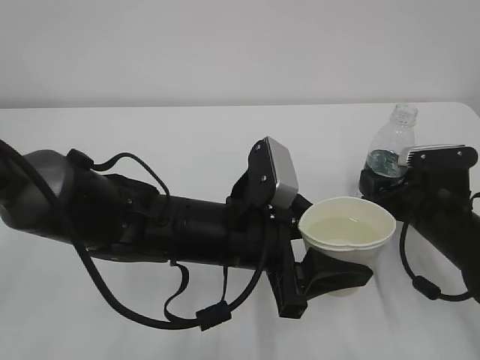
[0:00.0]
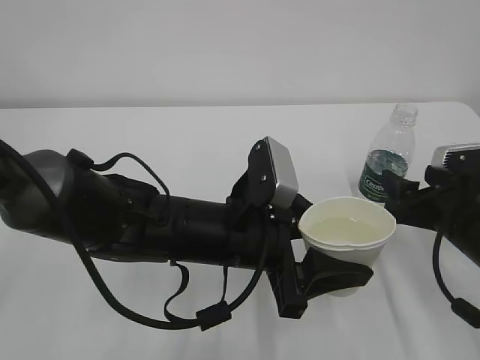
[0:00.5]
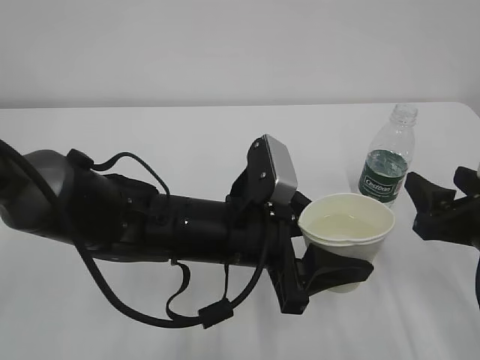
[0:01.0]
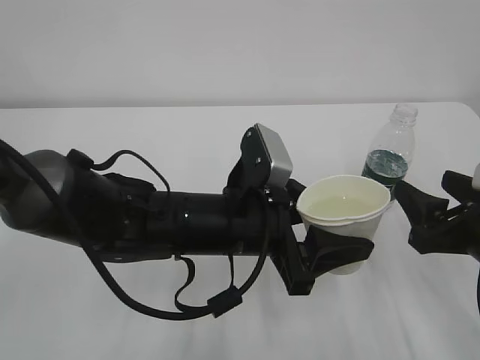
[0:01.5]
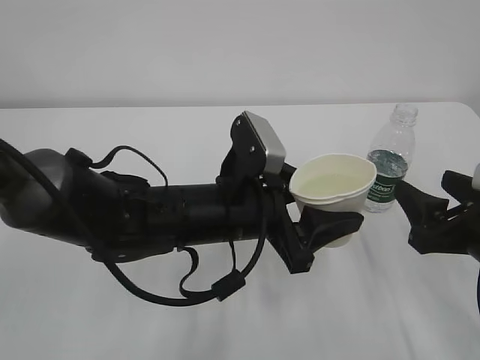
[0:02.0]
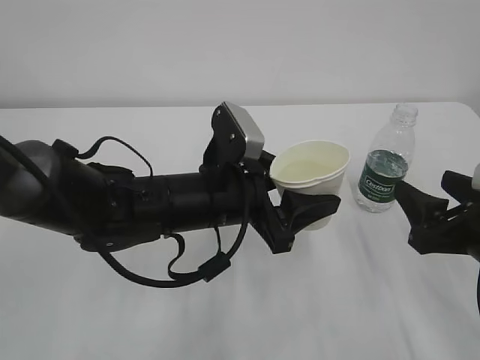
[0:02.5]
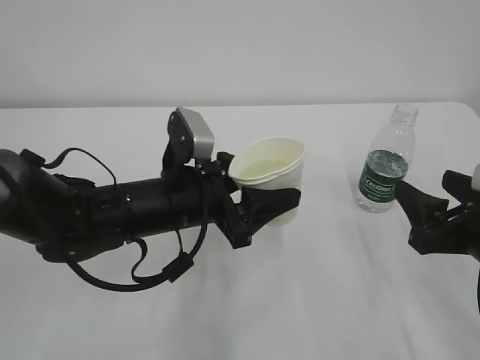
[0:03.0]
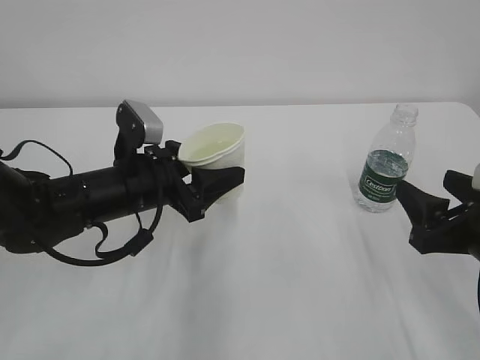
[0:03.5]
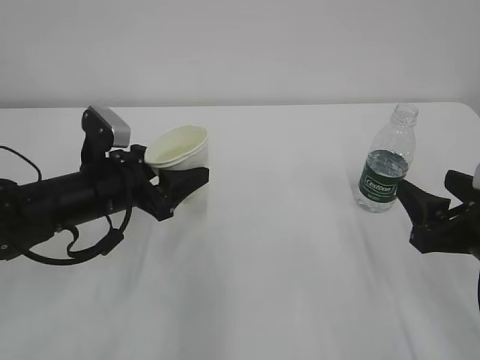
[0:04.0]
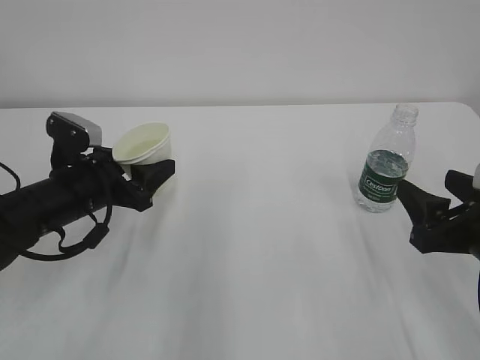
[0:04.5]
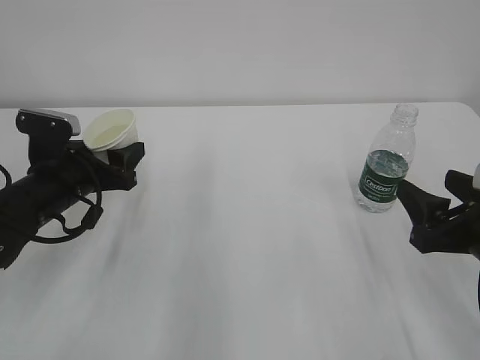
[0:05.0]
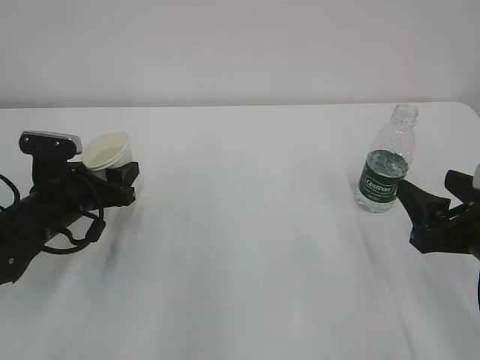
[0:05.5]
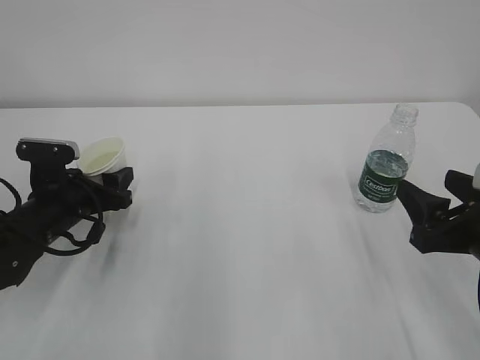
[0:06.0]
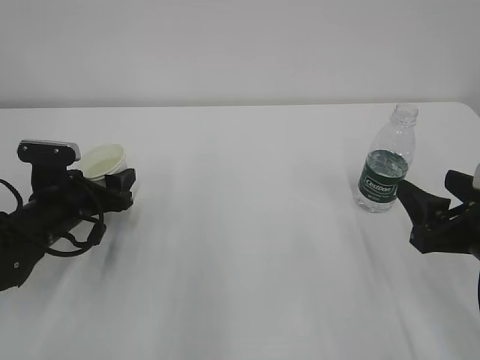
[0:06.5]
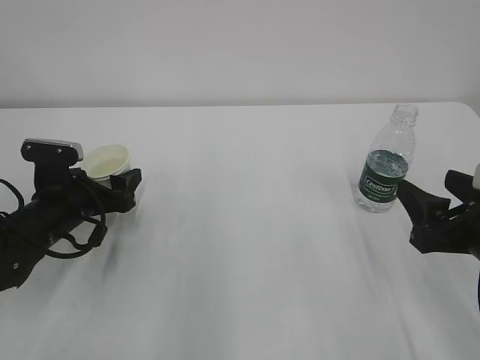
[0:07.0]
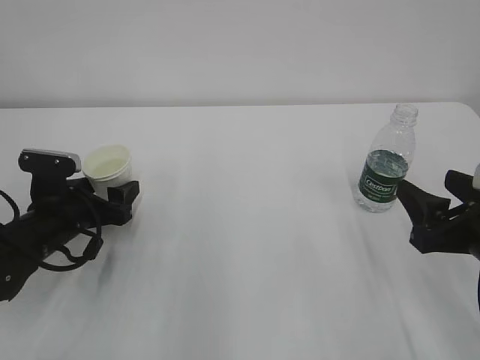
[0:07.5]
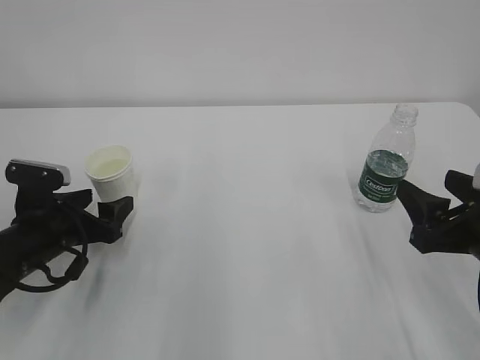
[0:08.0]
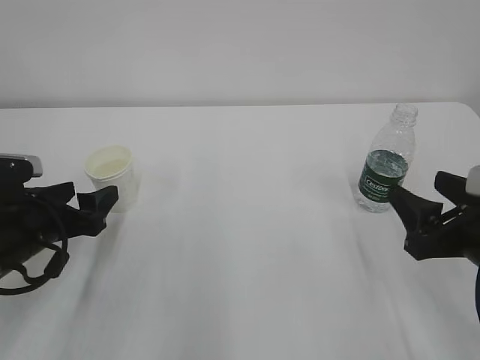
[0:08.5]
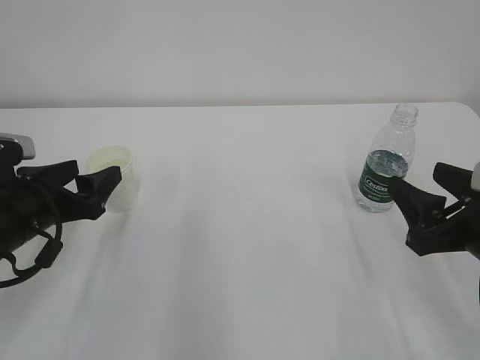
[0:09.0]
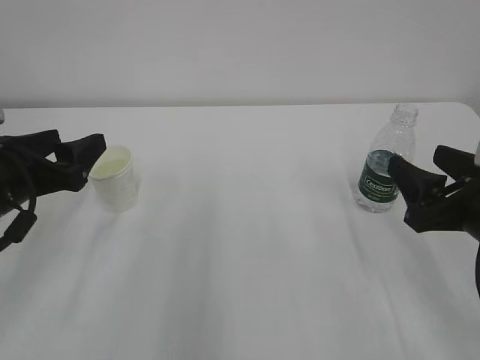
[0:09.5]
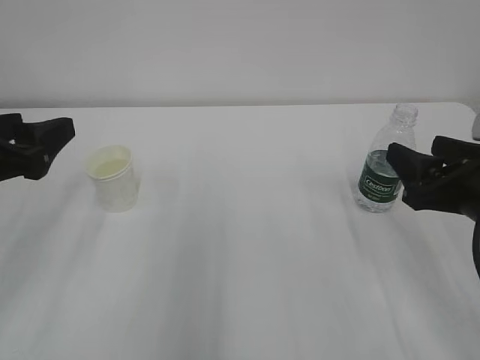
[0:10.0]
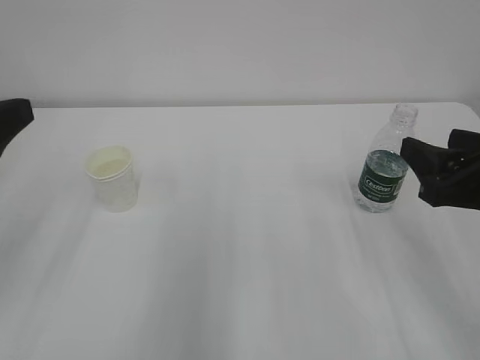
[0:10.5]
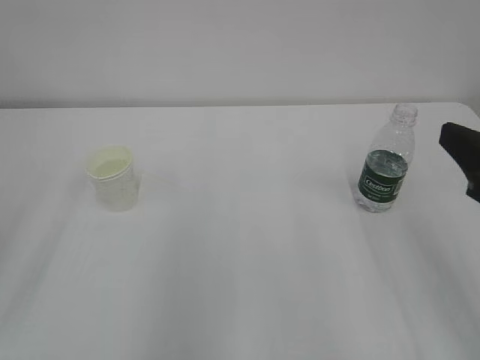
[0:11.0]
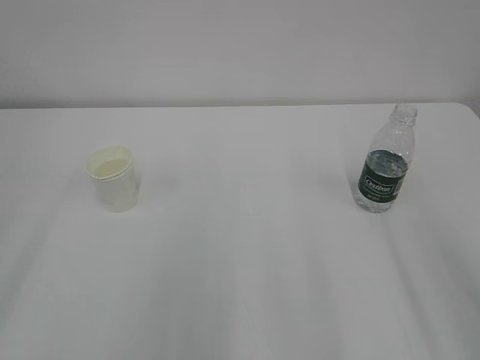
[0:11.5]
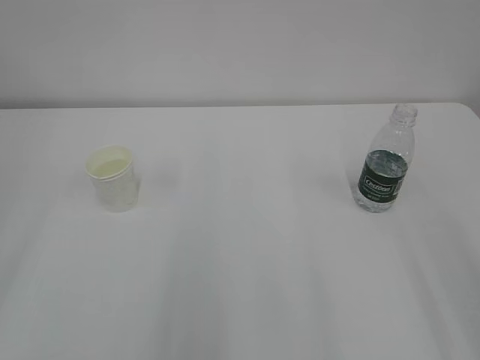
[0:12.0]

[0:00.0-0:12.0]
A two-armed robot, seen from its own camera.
0:00.0 to 0:02.0: The right gripper heads backward and upward, covering approximately 10 cm.
0:02.0 to 0:04.0: The left gripper travels to the left and forward by approximately 15 cm.
0:04.0 to 0:06.0: The left gripper goes about 5 cm to the left.
0:06.0 to 0:08.0: The left gripper opens.
0:08.0 to 0:10.0: The left gripper is displaced upward by roughly 15 cm.
0:10.0 to 0:12.0: Both grippers move backward and upward, roughly 20 cm.
